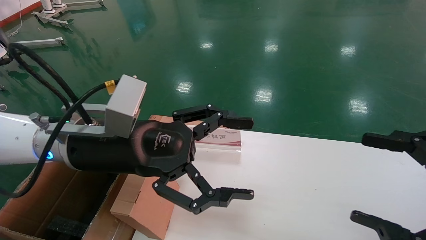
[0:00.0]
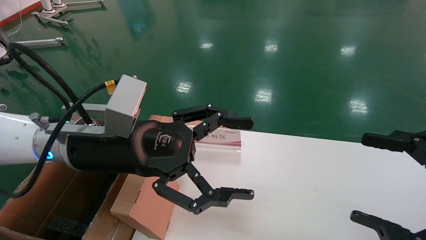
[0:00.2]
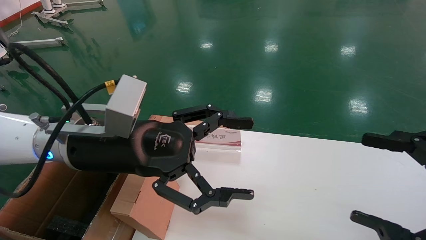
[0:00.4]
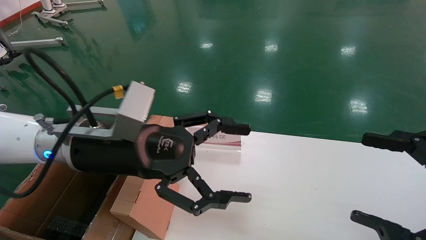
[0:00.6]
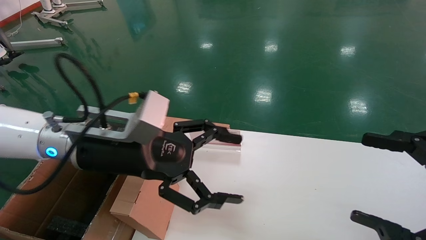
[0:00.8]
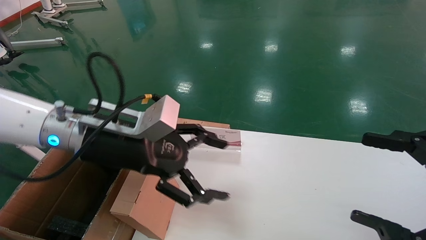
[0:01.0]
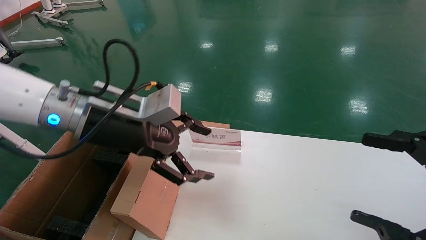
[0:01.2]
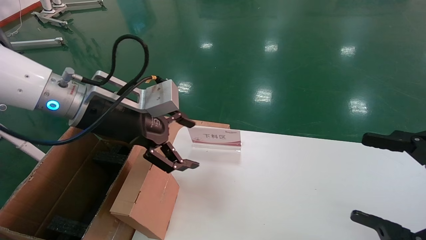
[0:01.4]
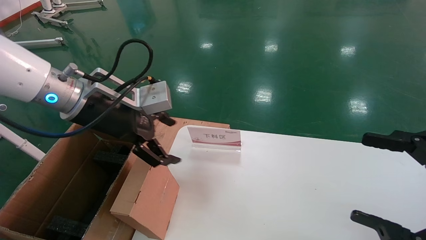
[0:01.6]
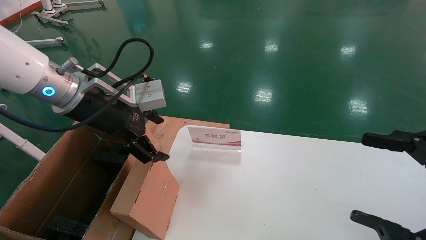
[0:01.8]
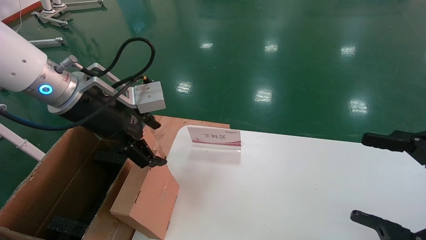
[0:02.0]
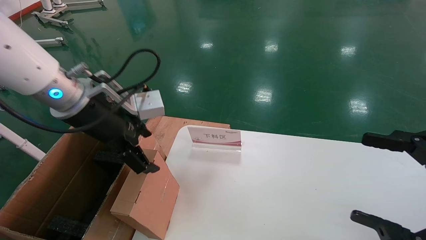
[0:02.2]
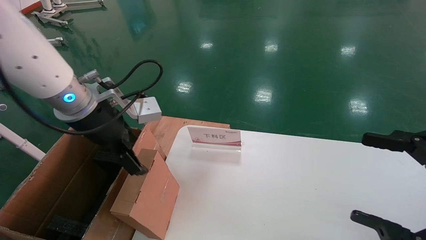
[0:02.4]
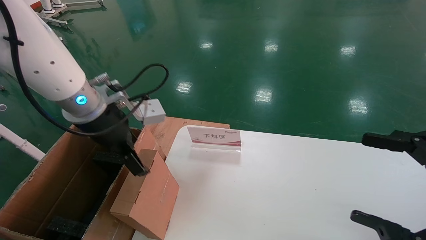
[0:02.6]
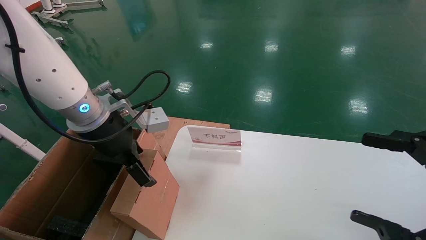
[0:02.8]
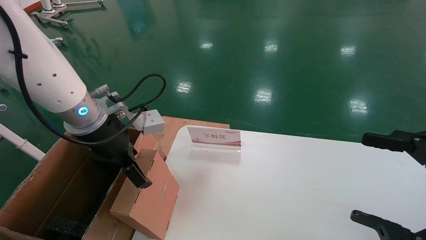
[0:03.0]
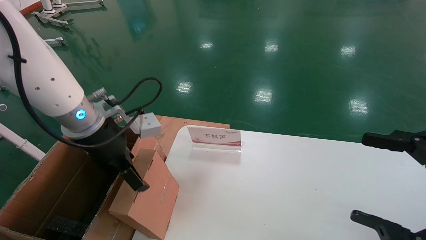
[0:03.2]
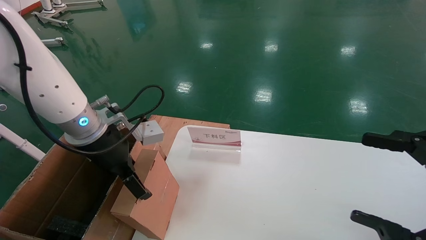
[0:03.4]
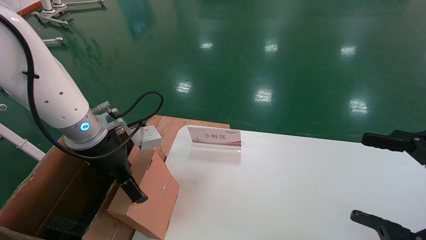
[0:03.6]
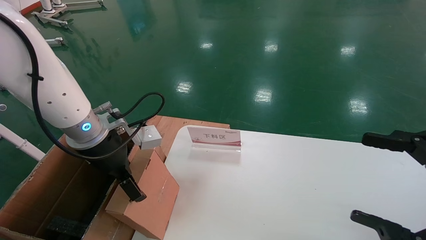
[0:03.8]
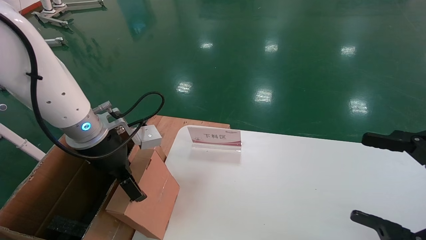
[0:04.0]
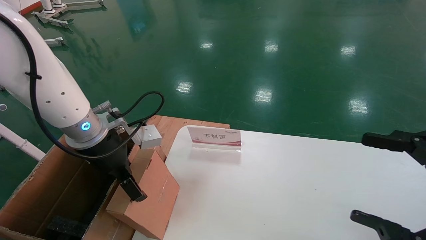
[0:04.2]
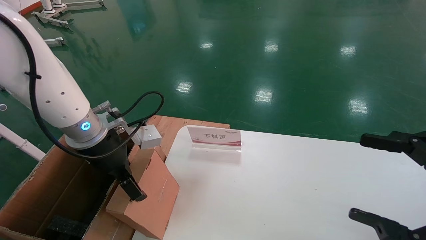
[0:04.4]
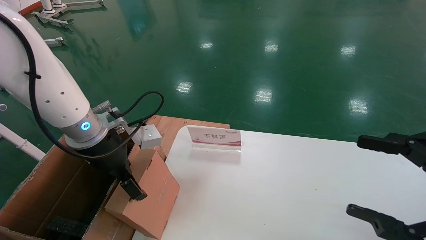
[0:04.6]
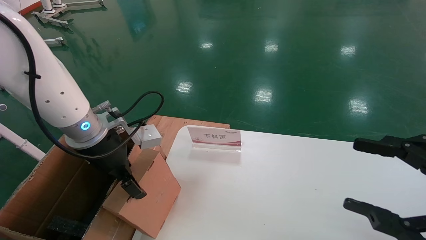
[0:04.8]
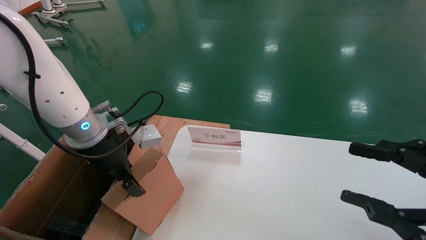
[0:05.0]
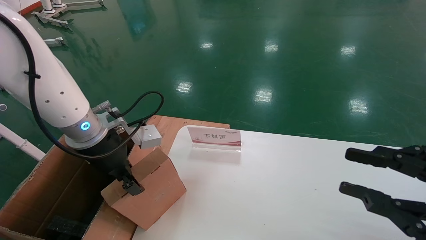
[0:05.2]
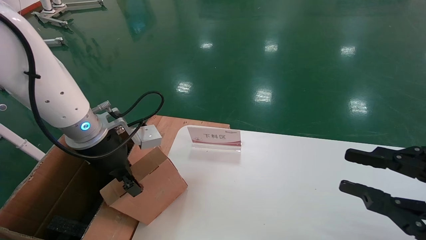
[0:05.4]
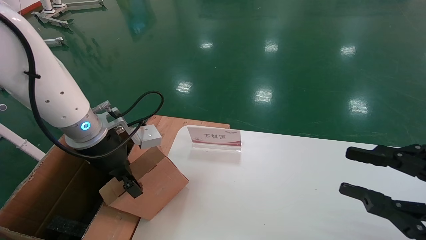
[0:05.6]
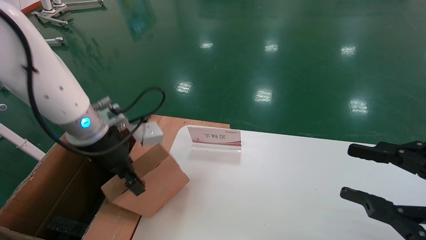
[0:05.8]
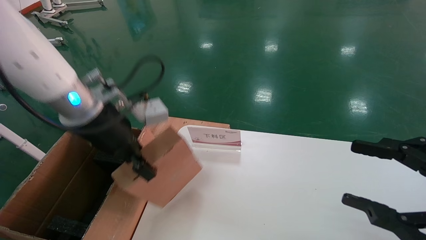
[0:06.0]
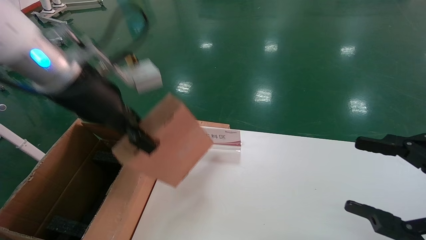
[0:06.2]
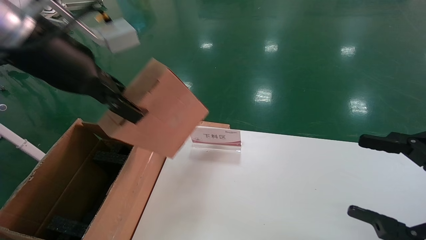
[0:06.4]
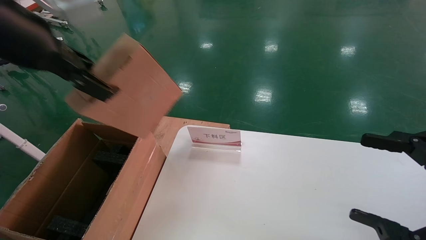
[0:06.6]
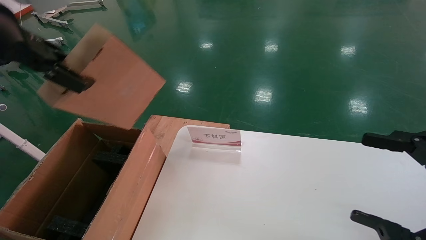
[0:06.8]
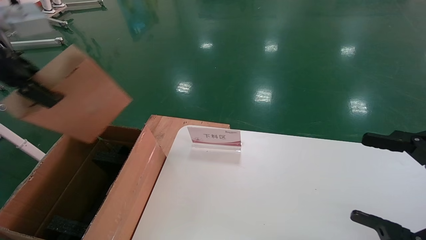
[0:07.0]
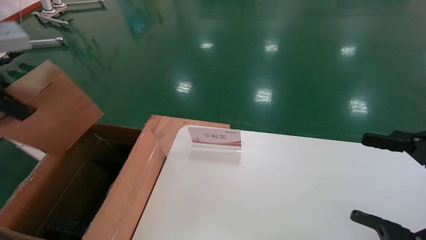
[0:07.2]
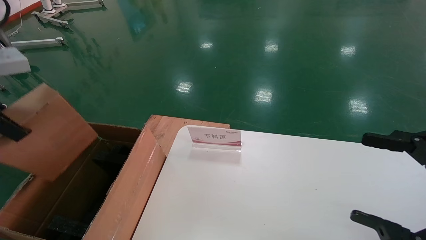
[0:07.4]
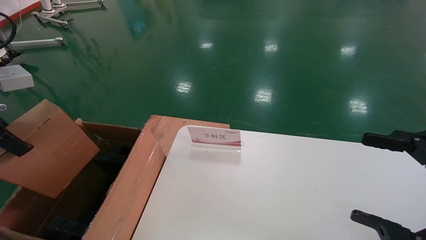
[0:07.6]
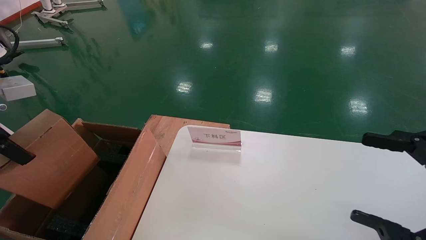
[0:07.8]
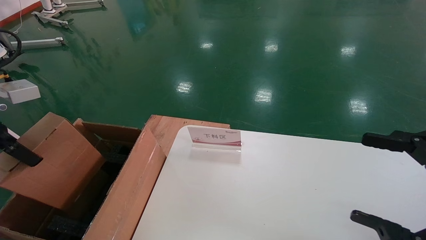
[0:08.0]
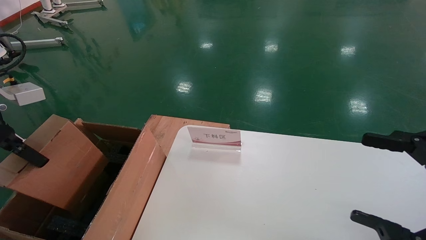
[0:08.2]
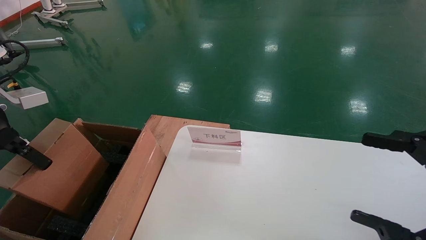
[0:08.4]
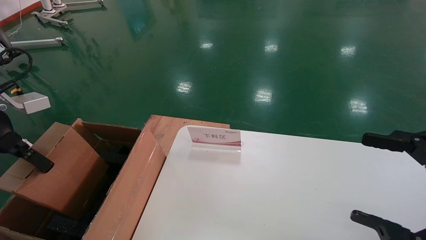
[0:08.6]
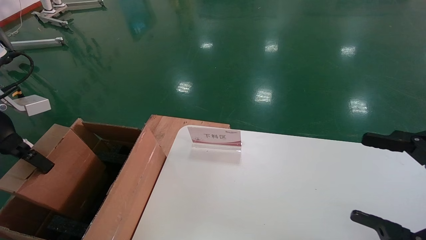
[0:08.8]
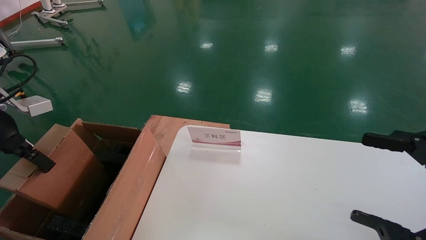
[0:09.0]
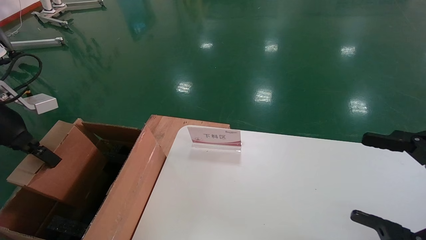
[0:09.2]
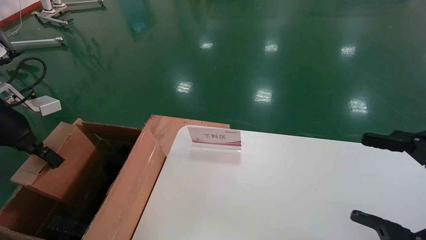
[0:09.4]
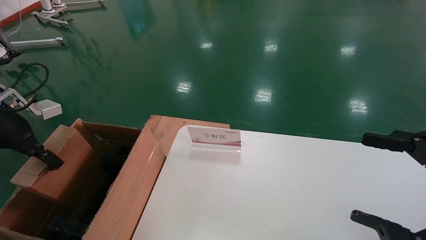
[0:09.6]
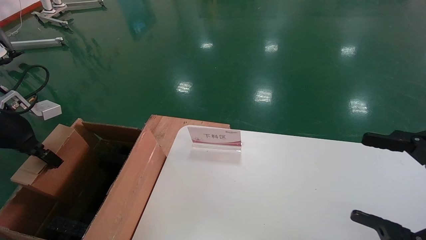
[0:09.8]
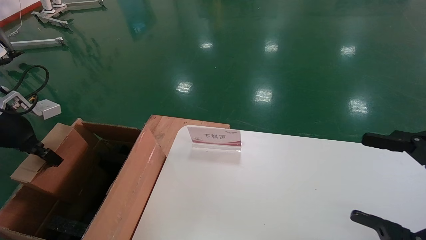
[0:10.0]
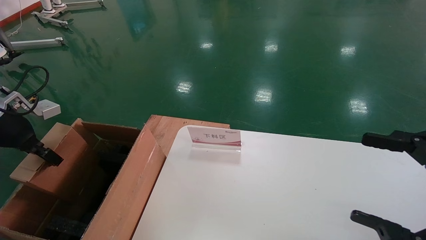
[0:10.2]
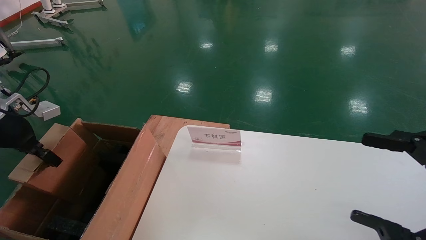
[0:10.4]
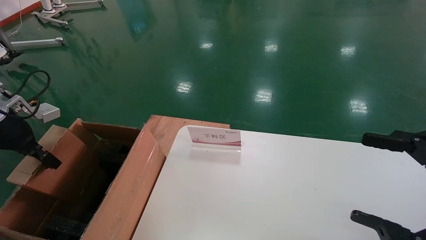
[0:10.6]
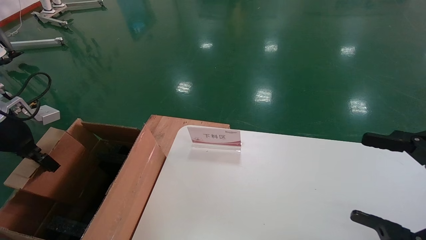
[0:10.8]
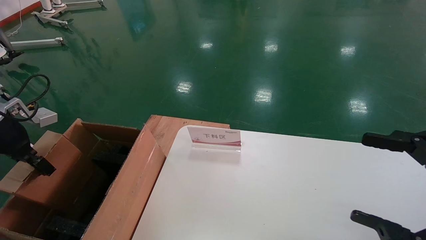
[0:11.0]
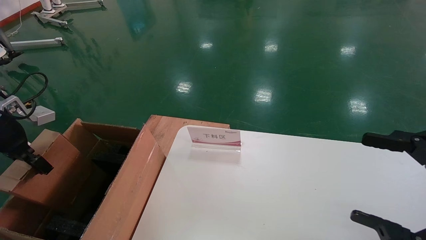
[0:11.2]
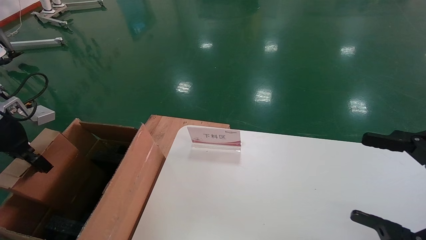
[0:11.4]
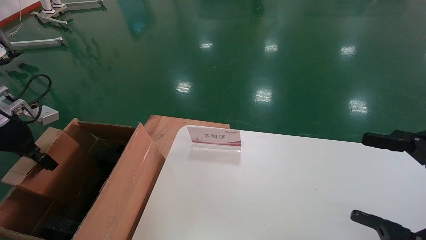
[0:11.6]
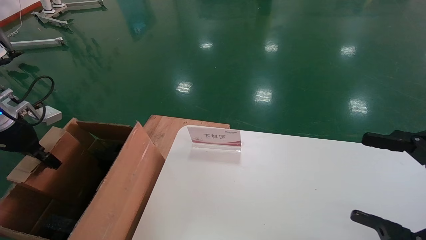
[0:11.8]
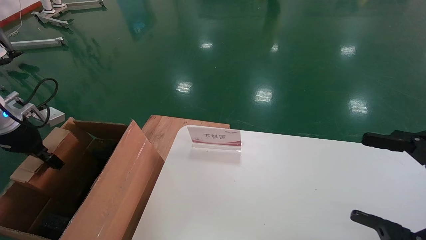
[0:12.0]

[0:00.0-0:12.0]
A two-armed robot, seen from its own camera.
Task of the whole recording: pick up the small cardboard box and load it into the large cardboard box.
Step, 0:00.8 to 0:05.2: Pick up the mouse and power cord box.
0:00.0 to 0:01.6: The left gripper moves roughly 10 cm.
0:03.0 to 0:04.4: The grippers make only small movements.
0:04.4 to 0:06.0: The left gripper goes some 5 cm upward, and closes its fingers, while the right gripper closes its fingers.
0:06.0 to 0:07.6: The right gripper opens, while the left gripper heads to the left and backward, covering about 20 cm.
0:07.6 to 0:09.0: The left gripper travels downward by some 5 cm.
0:09.0 to 0:10.4: The left gripper ends up about 5 cm from where it was.
0:10.4 to 0:12.0: The grippers make only small movements.

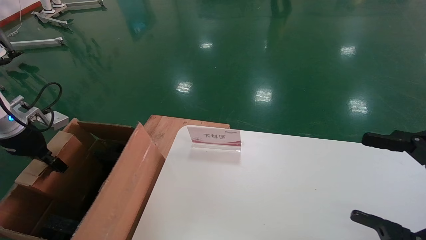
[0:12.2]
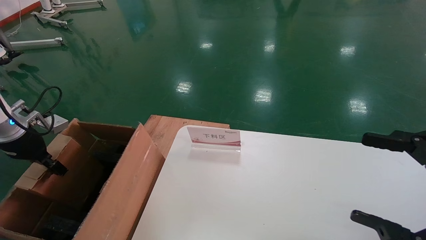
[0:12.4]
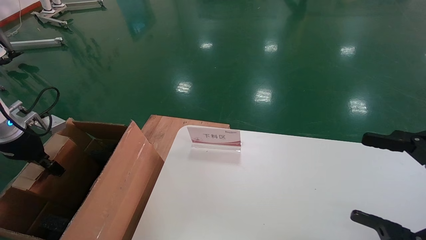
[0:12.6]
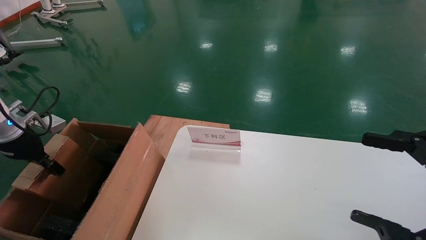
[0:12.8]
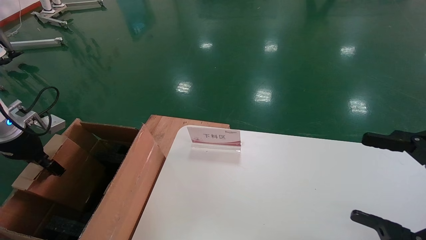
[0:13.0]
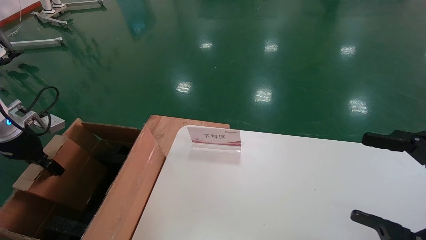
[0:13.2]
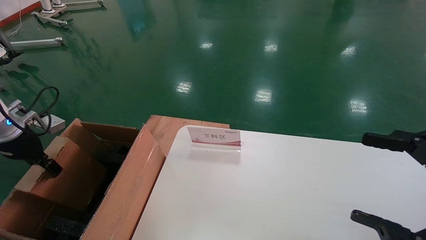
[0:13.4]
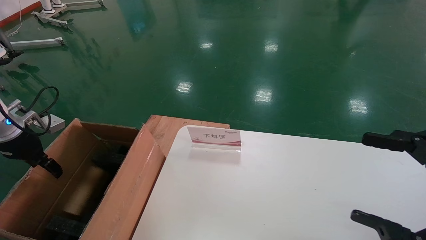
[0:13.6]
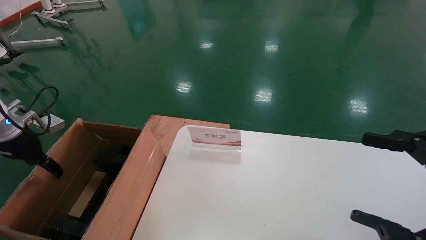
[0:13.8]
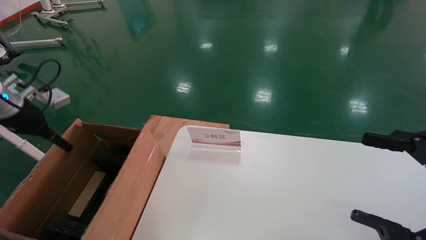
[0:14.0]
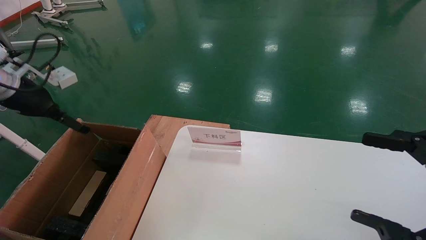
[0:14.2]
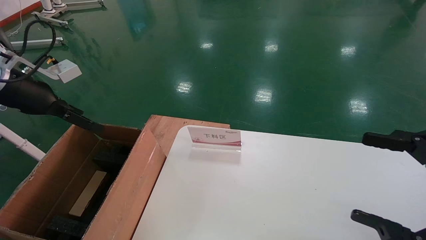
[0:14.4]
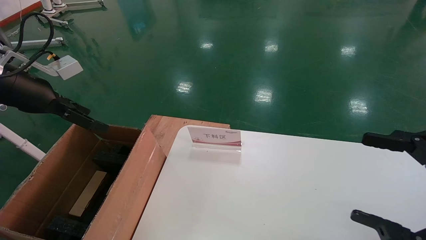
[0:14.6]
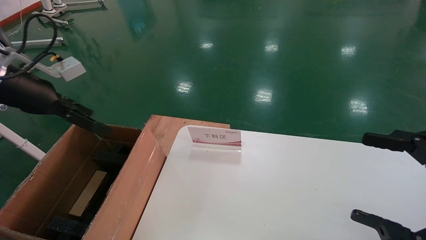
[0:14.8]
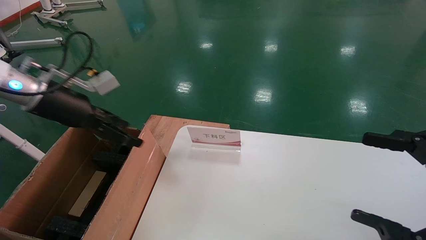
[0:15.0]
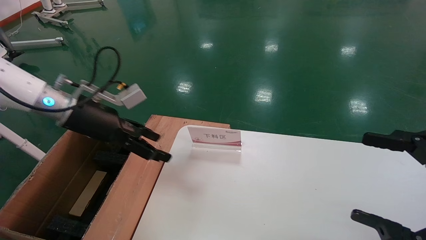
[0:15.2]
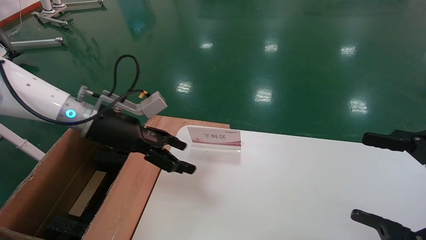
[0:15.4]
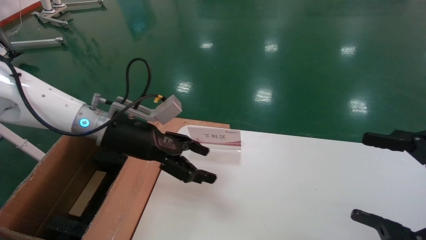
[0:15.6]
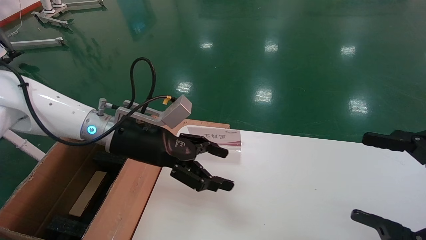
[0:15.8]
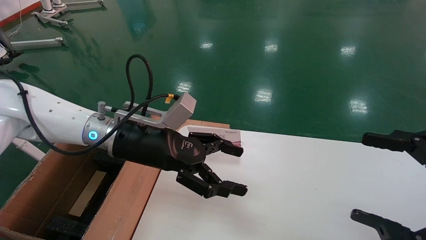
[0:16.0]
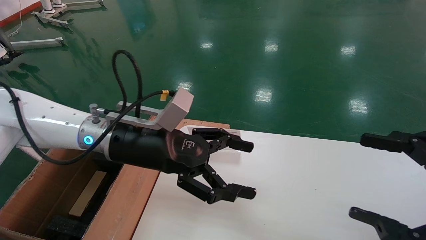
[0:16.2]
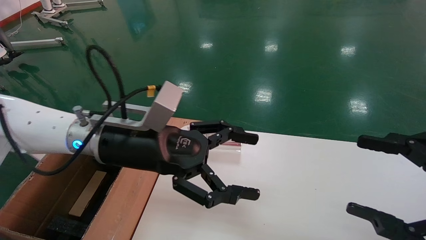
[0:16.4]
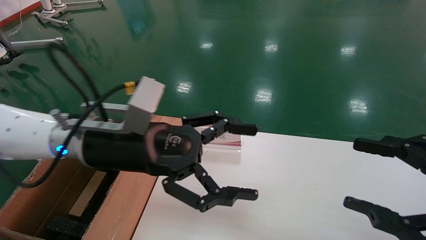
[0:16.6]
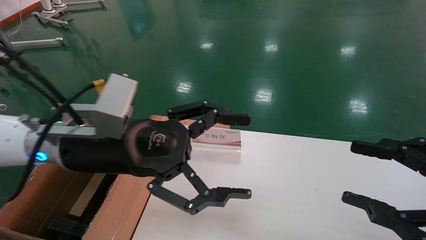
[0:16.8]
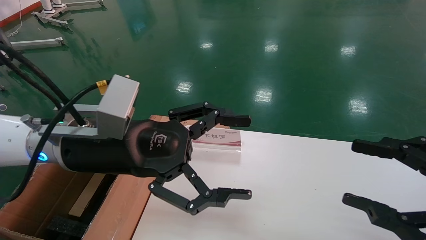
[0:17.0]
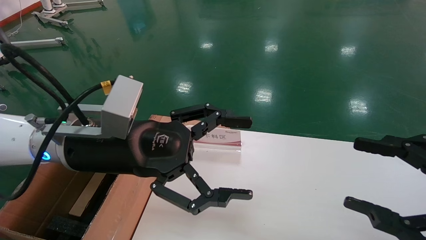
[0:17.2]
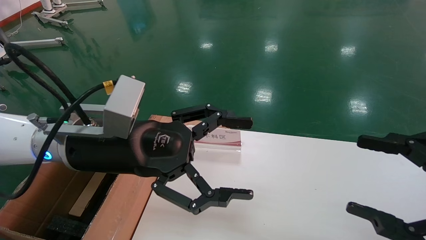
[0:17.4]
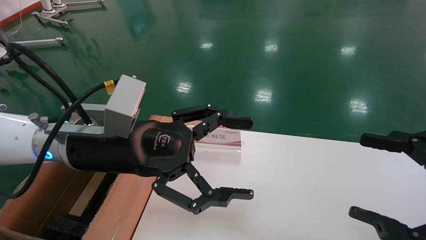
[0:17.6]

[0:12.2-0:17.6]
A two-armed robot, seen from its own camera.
Task of the whole recording: pick up the small cardboard box and load it into the large cardboard box.
0:12.2 to 0:13.6: The left gripper opens its fingers.
0:13.6 to 0:15.0: The left gripper is displaced to the right and upward by some 15 cm, and opens up.
0:15.0 to 0:16.2: The left gripper is displaced to the right by some 20 cm.
0:16.2 to 0:17.6: The left gripper travels backward by roughly 5 cm.
